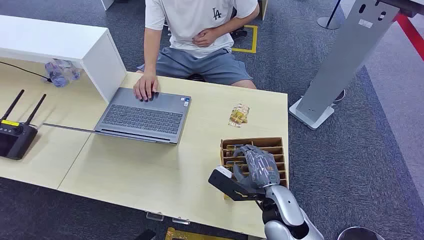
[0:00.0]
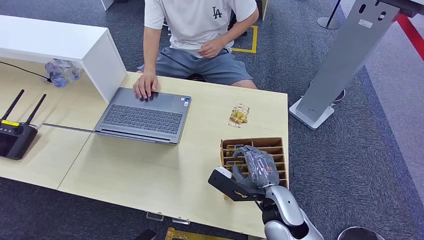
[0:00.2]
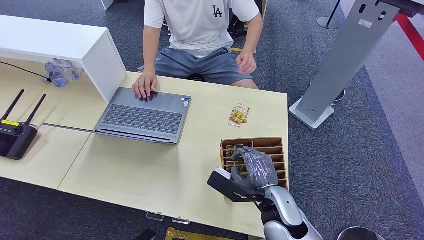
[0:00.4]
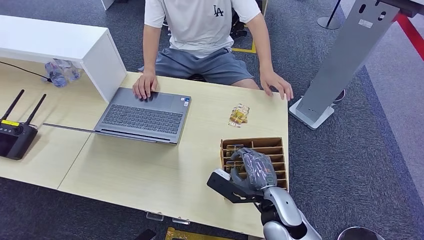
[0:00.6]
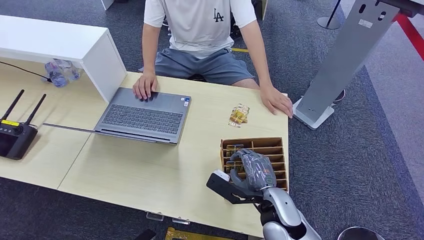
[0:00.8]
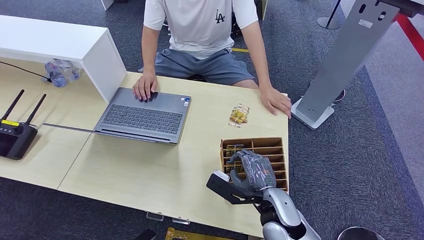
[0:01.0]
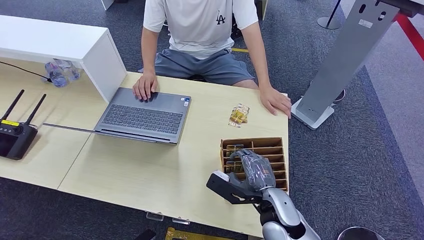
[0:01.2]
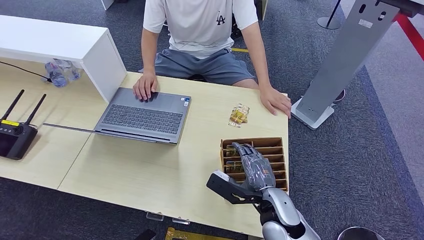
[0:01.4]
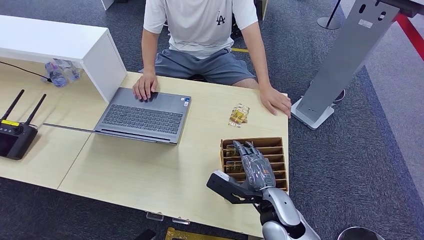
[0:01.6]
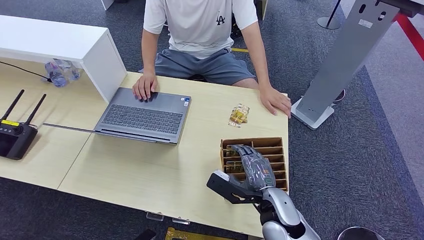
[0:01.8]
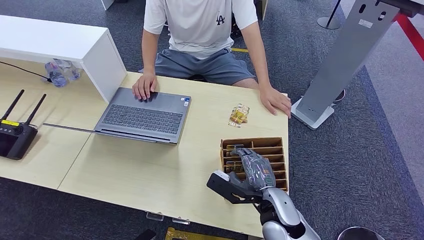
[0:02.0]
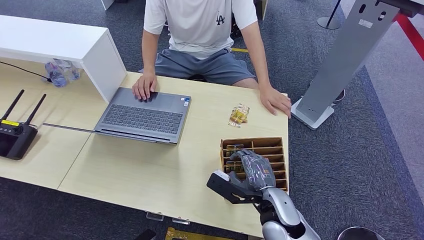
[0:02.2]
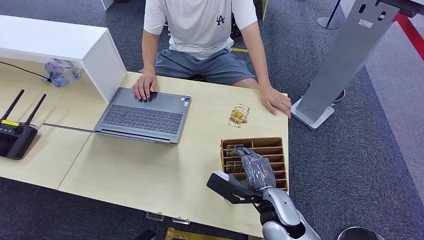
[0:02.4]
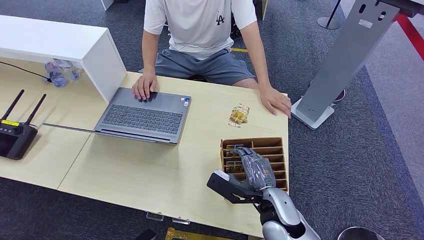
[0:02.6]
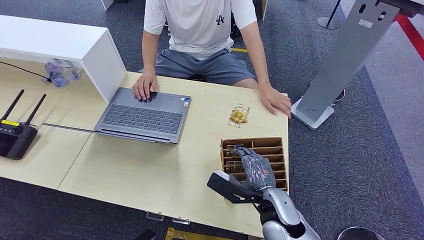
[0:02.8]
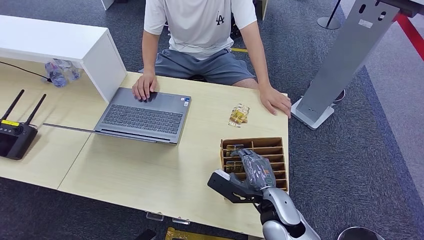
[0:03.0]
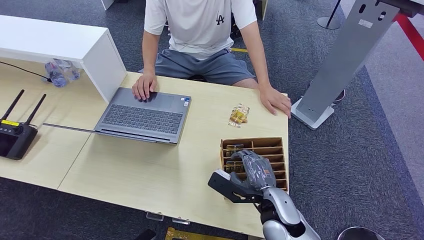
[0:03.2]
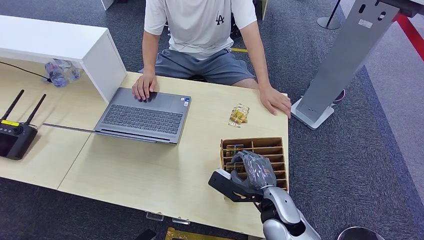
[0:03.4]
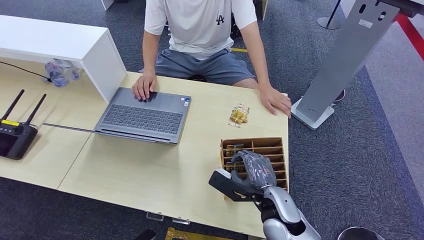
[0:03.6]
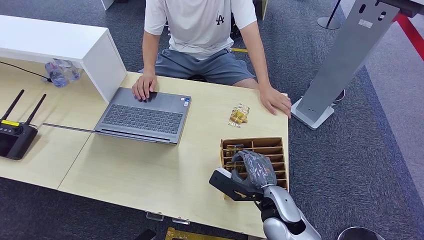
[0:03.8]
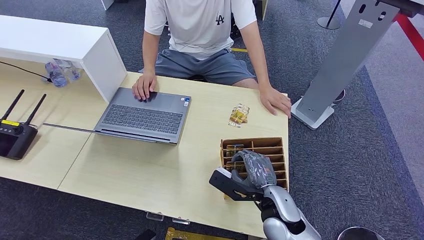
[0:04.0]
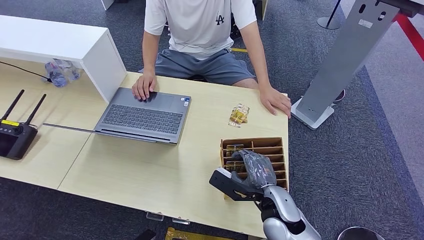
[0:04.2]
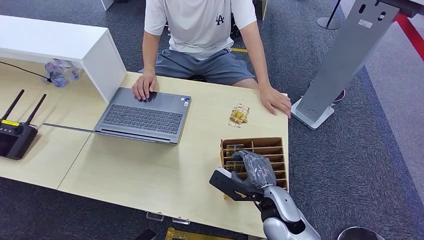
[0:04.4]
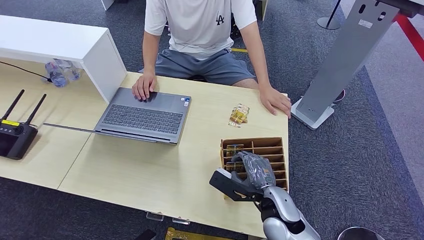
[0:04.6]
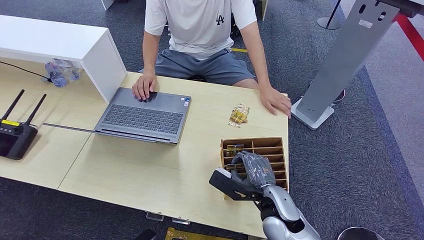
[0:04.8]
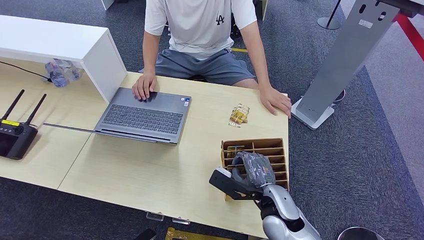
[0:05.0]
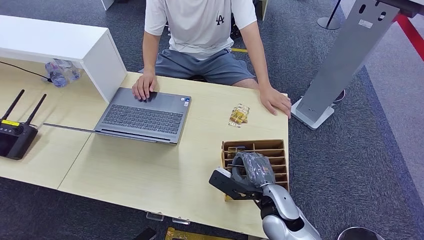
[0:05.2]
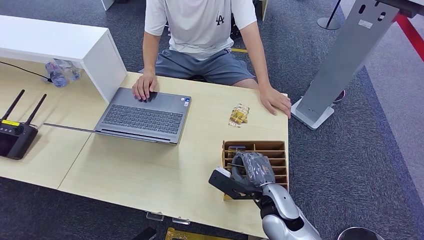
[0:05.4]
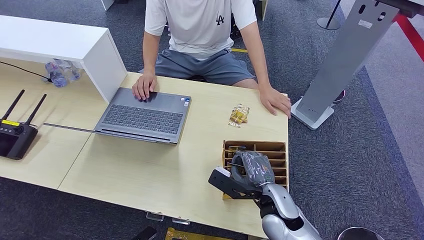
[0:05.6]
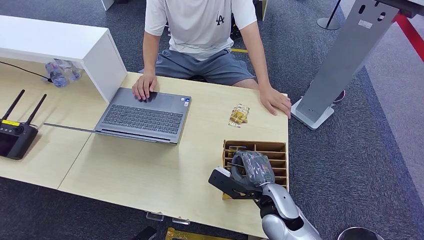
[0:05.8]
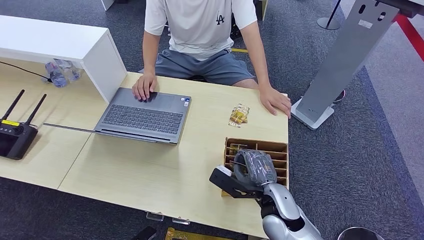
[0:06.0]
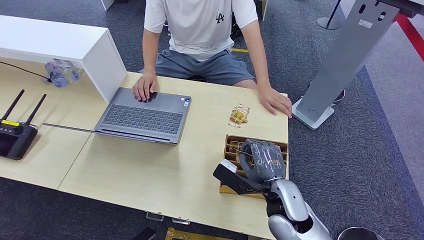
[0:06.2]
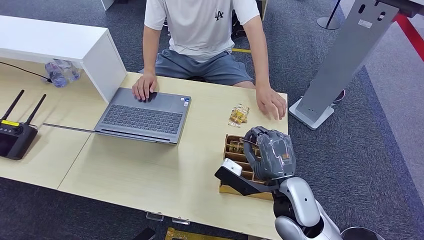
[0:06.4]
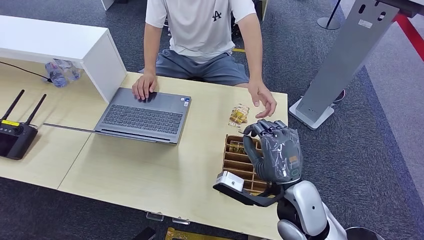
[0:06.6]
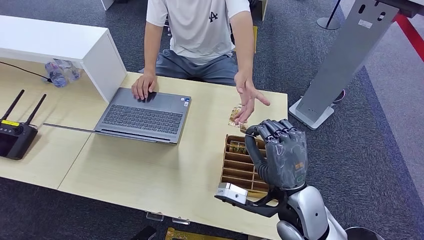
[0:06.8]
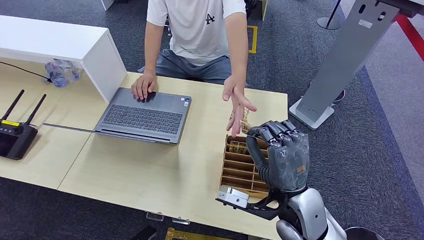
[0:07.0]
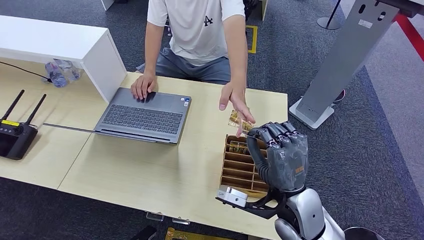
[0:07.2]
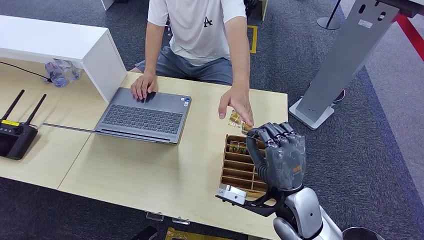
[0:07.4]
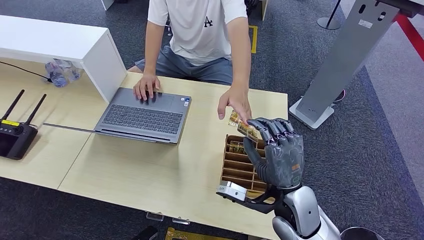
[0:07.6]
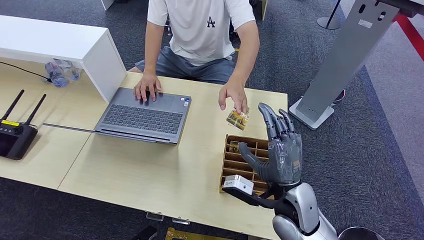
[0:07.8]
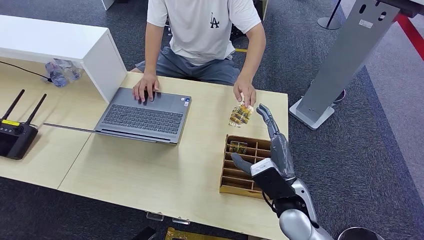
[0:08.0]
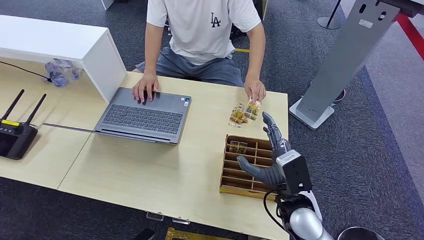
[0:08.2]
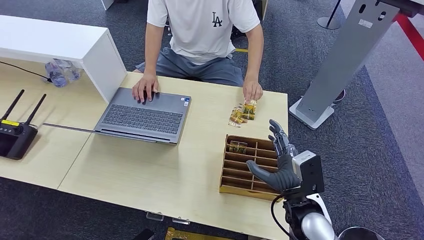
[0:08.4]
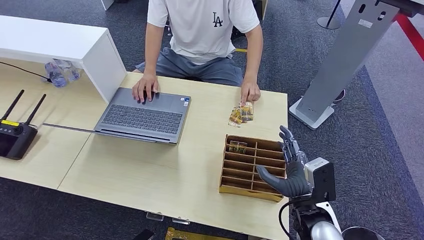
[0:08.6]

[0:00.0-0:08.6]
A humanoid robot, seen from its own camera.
Step, 0:00.0 to 0:06.4: Pick up the key card from the card box.
Step, 0:06.6 to 0:08.6: Hand the key card to the target.
0:01.4 to 0:04.4: Neither hand changes place.
0:04.4 to 0:05.8: The two hands keep their place.
0:05.8 to 0:07.2: The right hand travels upward by approximately 10 cm.
0:07.2 to 0:08.6: The right hand shifts some 10 cm downward and to the right.
